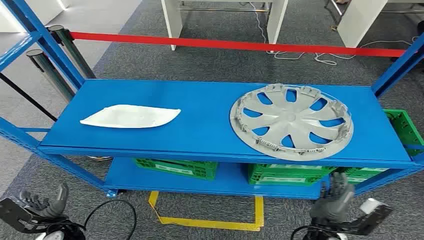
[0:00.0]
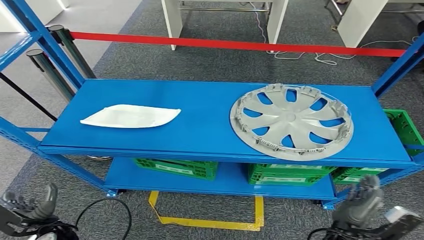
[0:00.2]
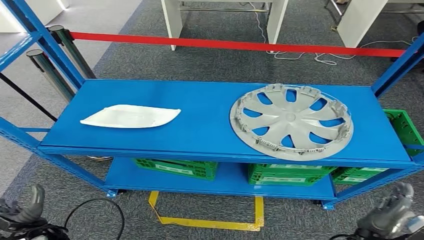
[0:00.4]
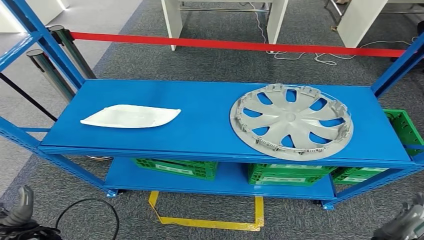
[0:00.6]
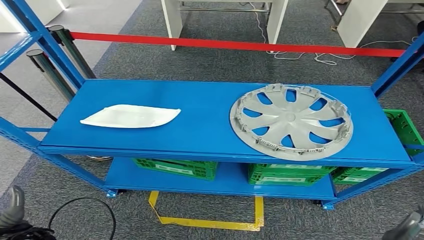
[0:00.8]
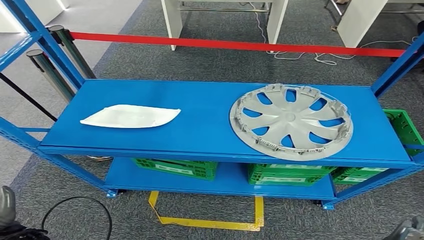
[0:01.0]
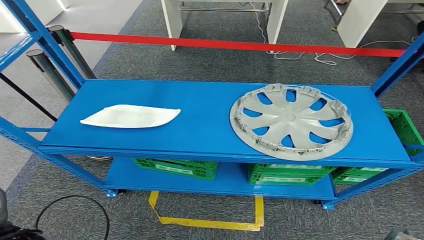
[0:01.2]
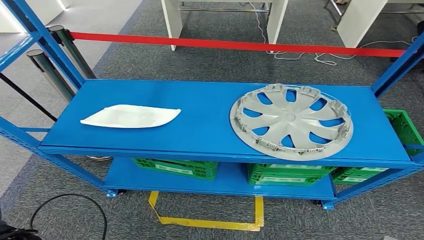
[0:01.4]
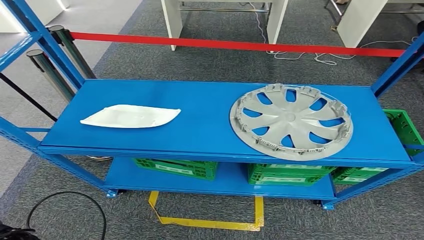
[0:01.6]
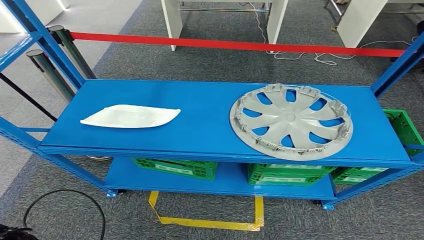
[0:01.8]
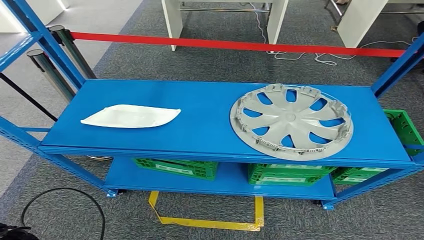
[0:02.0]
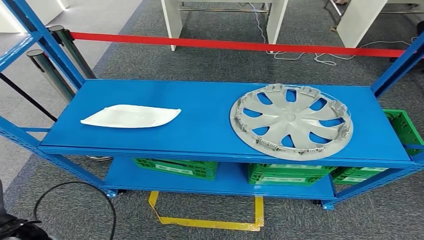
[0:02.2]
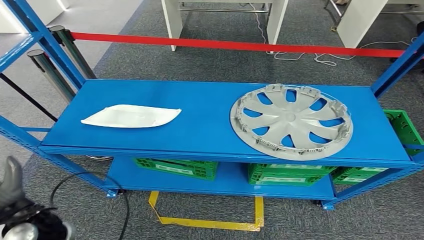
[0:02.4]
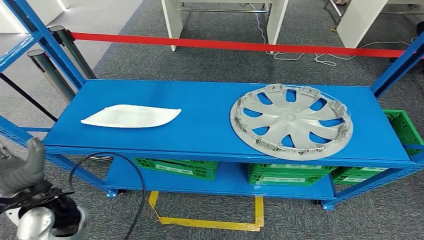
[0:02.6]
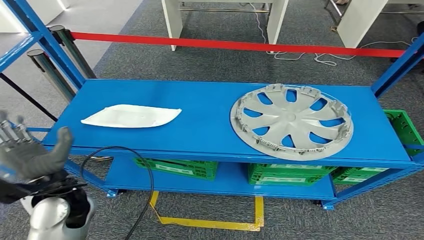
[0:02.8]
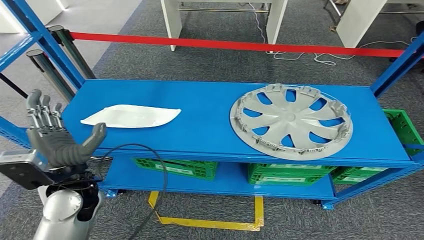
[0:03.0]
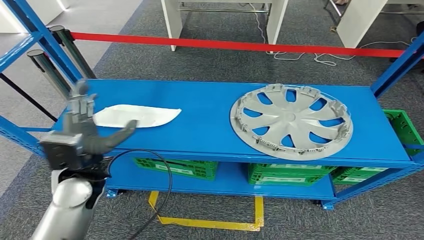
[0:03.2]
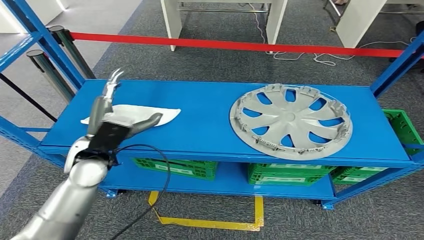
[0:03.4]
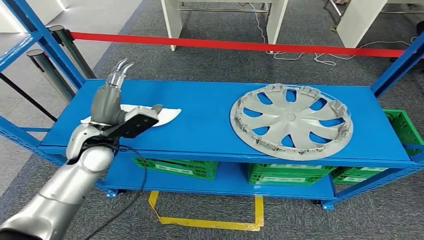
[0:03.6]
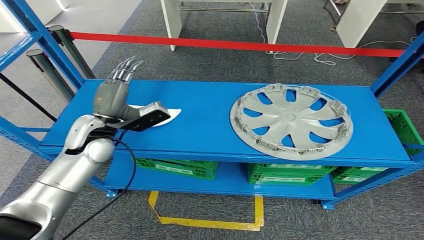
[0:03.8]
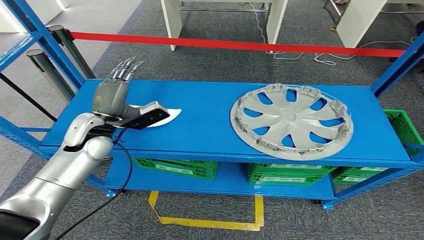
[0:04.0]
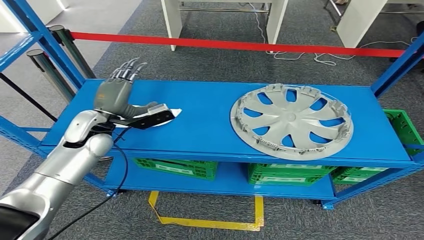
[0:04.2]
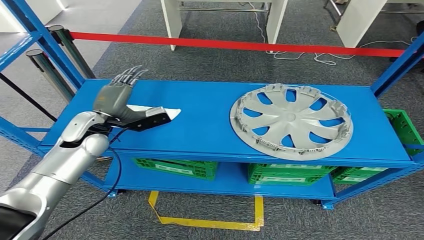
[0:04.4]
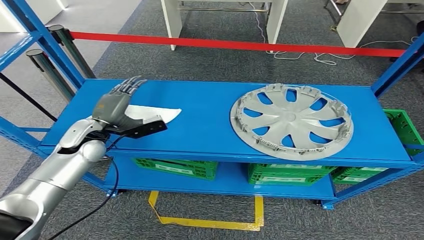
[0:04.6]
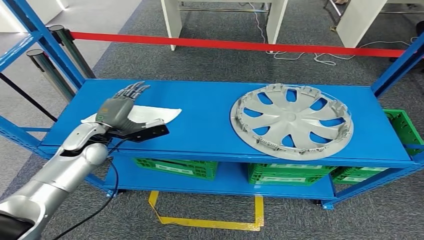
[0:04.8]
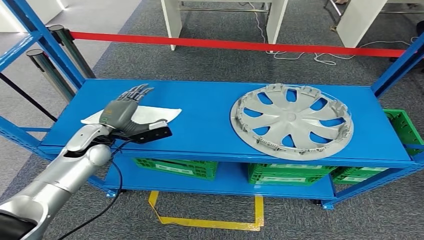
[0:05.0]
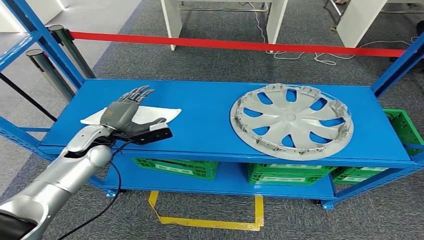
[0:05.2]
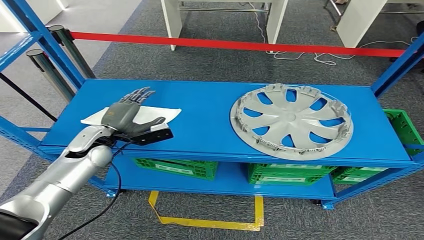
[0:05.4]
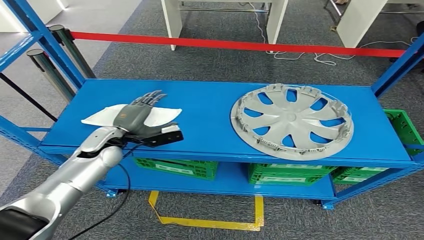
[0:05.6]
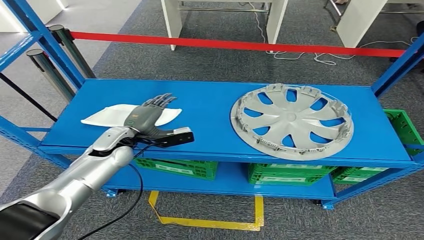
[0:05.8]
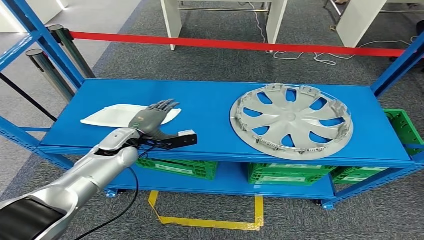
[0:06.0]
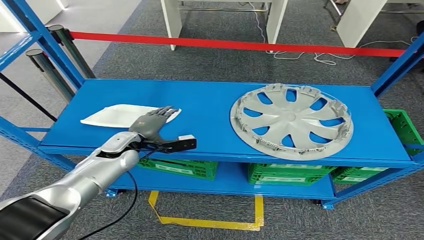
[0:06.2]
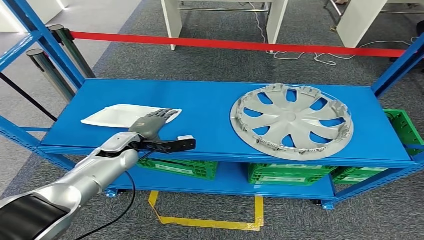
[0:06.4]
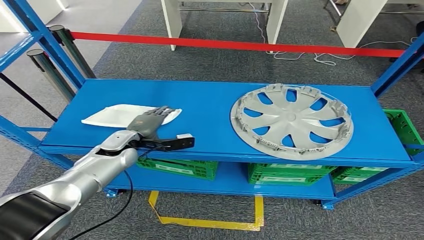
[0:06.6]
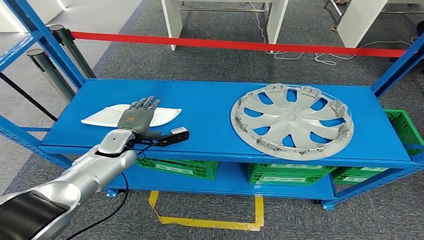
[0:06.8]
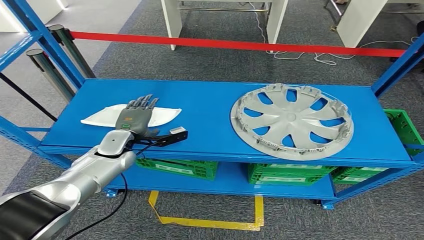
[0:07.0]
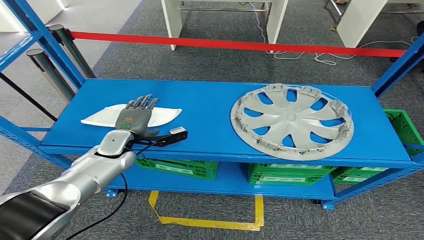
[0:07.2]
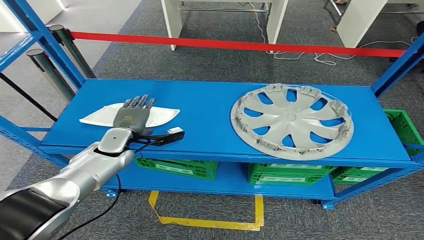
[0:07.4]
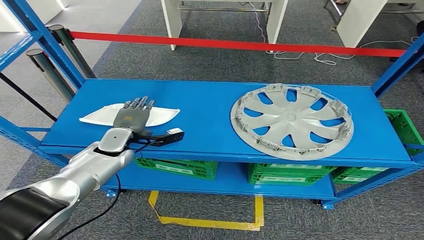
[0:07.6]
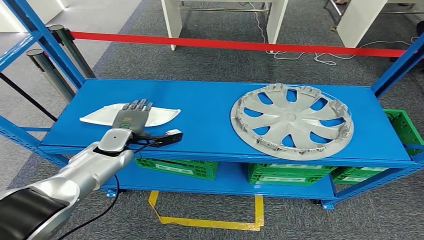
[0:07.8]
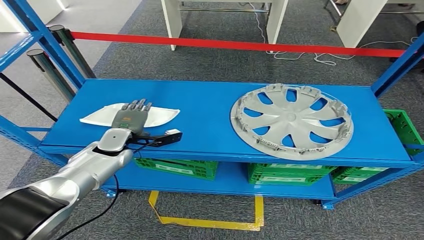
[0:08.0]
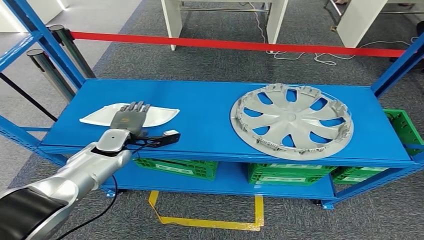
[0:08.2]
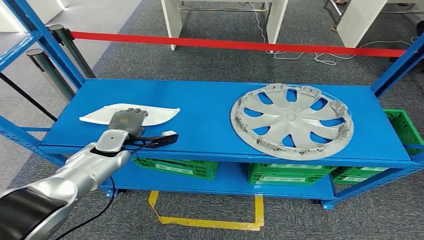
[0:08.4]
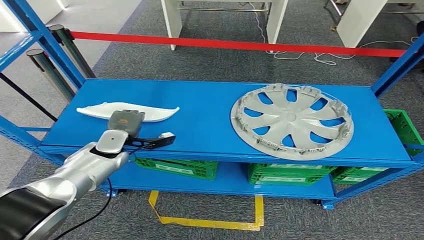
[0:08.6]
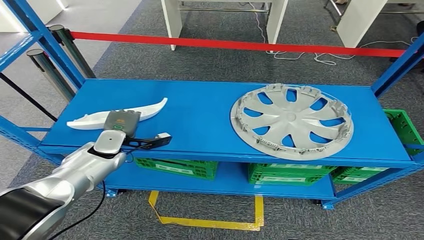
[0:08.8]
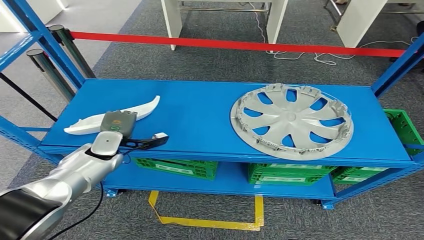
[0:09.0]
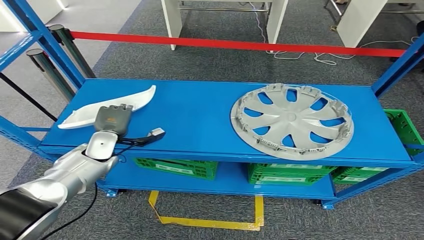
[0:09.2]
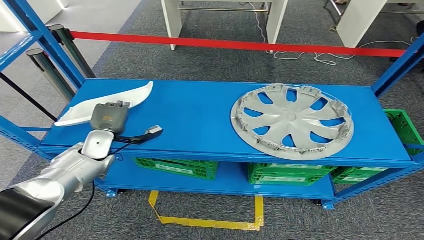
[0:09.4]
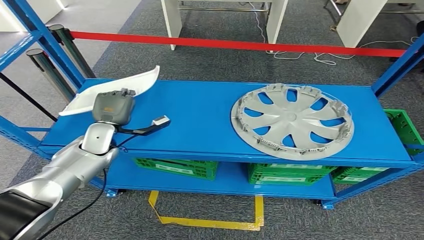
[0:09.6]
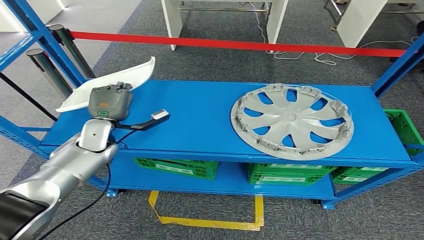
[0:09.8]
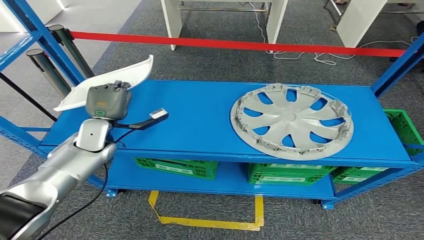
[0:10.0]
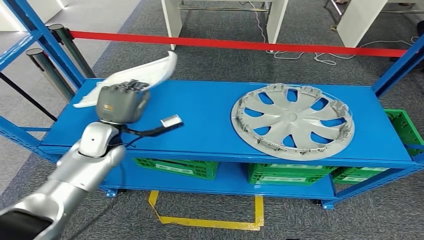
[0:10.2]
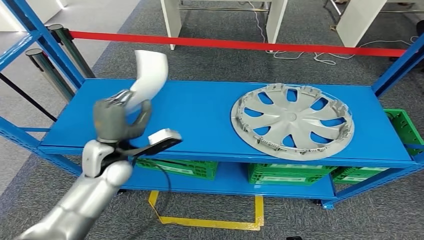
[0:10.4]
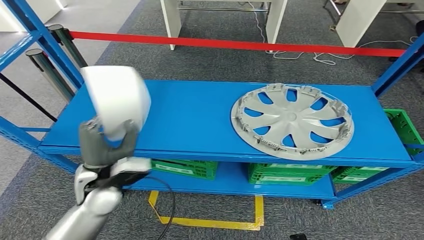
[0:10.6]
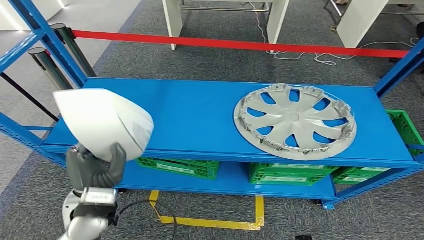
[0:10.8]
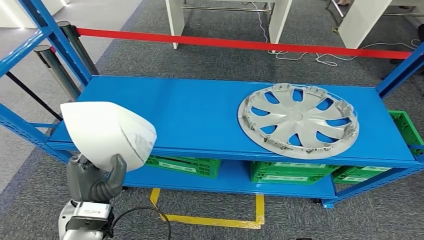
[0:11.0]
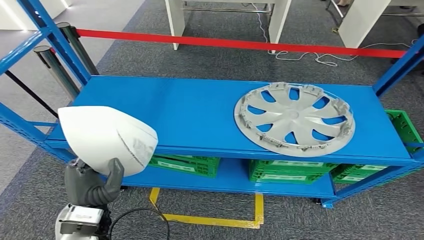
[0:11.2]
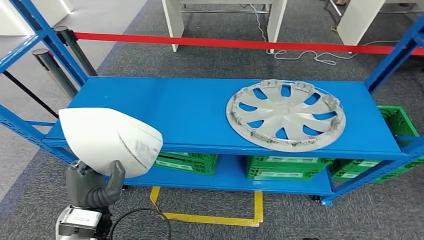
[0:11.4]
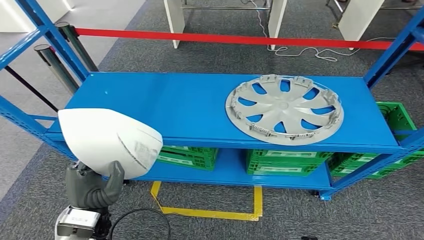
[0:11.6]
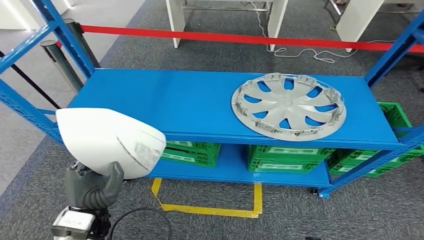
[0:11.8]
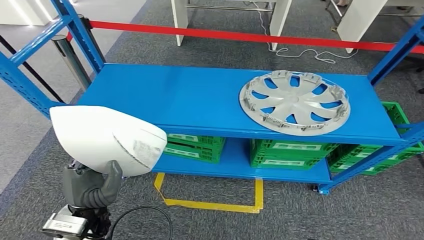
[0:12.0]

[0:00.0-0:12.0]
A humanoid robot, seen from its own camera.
Step, 0:00.0 to 0:11.4: Pick up the small parts from the shelf.
0:01.6 to 0:03.0: The left hand is displaced forward, to the right and upward by about 20 cm.
0:03.0 to 0:04.4: The left hand moves forward, about 15 cm.
0:04.4 to 0:06.0: The left hand heads downward and to the right, covering about 10 cm.
0:07.6 to 0:09.0: The hands make only small movements.
0:09.0 to 0:10.4: The left hand travels upward, backward and to the right by roughly 10 cm.

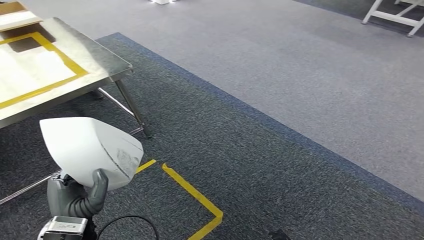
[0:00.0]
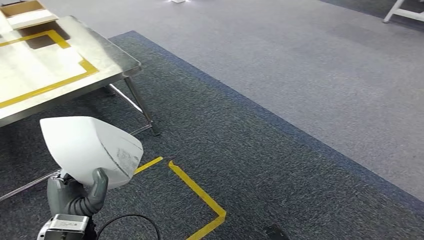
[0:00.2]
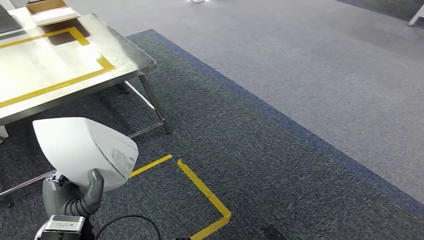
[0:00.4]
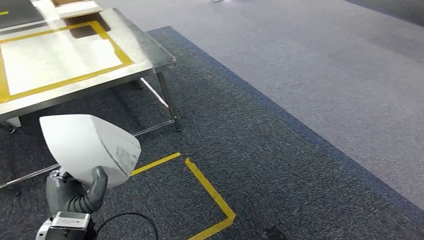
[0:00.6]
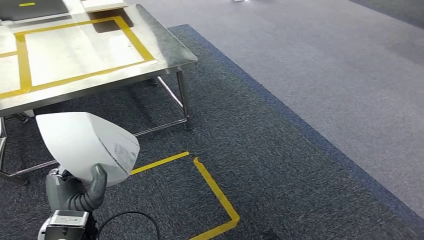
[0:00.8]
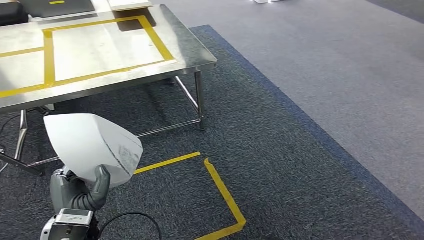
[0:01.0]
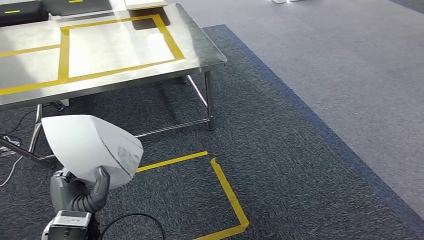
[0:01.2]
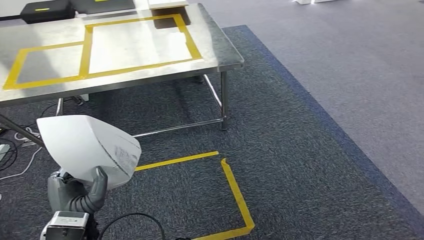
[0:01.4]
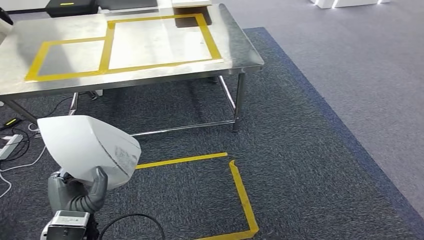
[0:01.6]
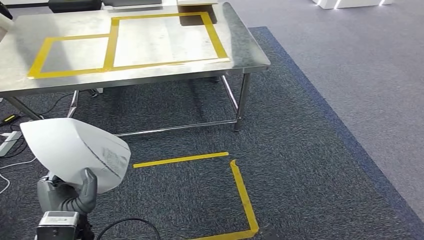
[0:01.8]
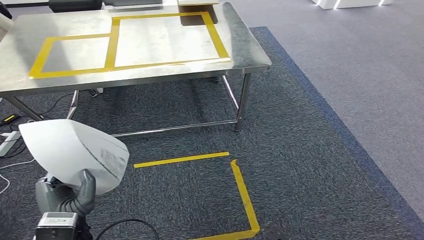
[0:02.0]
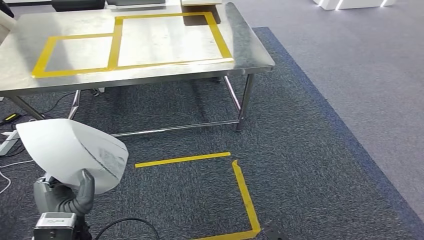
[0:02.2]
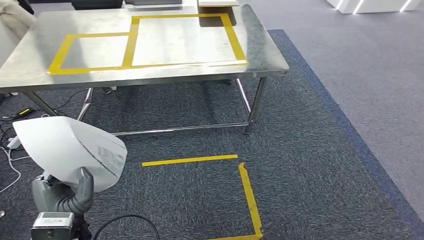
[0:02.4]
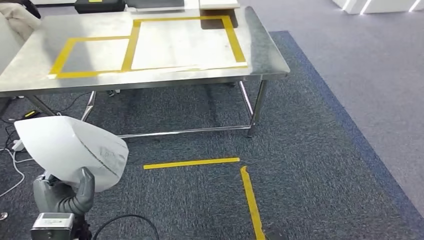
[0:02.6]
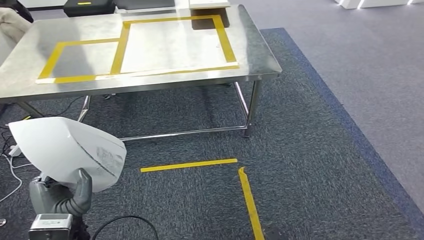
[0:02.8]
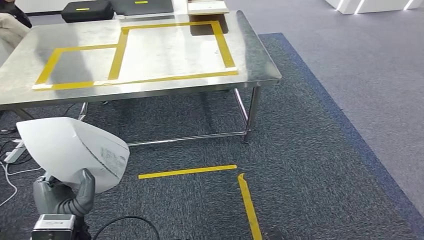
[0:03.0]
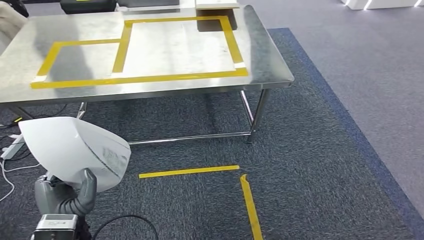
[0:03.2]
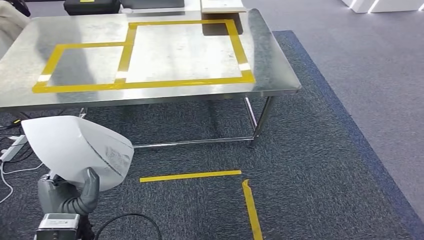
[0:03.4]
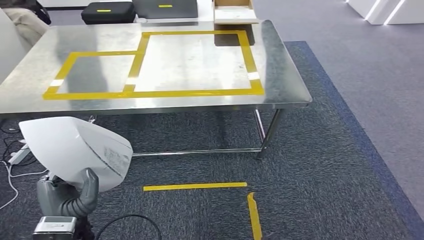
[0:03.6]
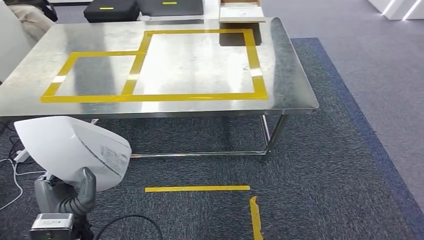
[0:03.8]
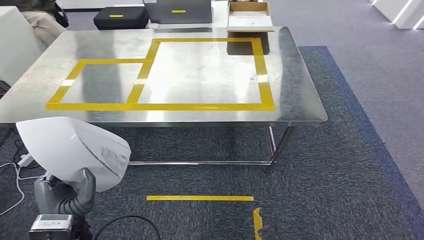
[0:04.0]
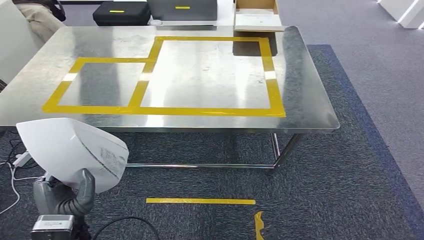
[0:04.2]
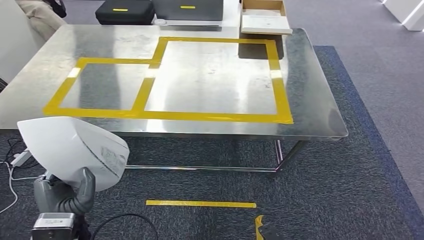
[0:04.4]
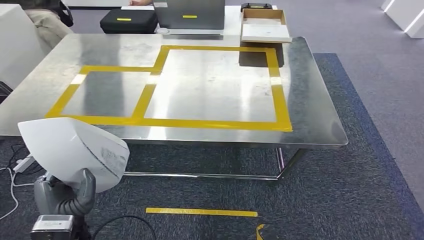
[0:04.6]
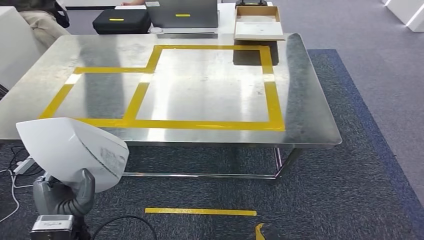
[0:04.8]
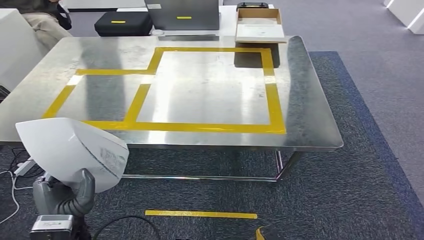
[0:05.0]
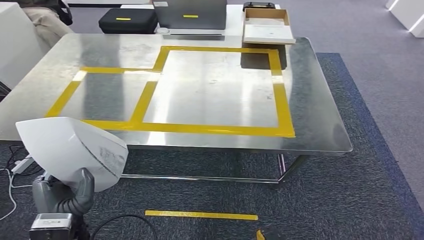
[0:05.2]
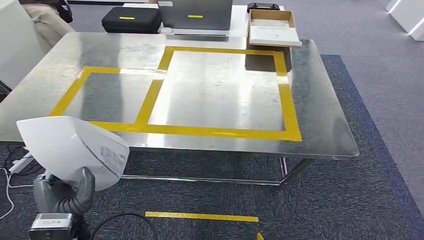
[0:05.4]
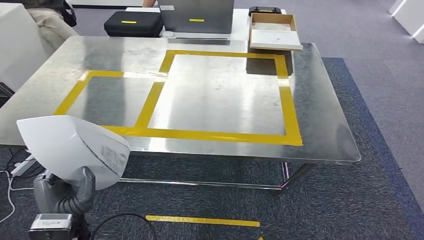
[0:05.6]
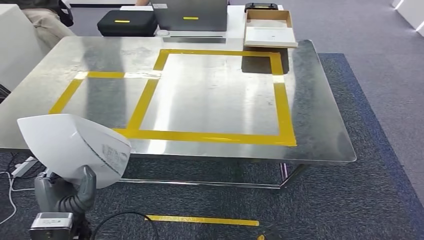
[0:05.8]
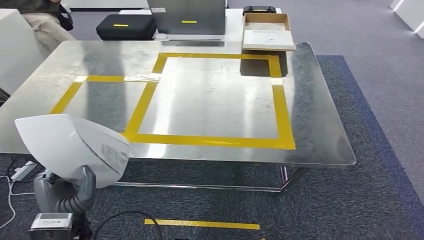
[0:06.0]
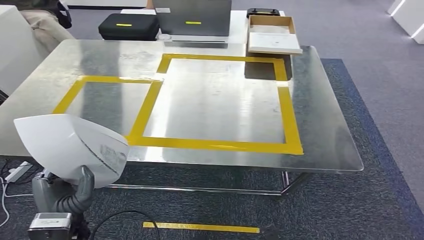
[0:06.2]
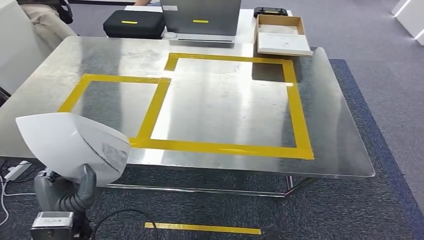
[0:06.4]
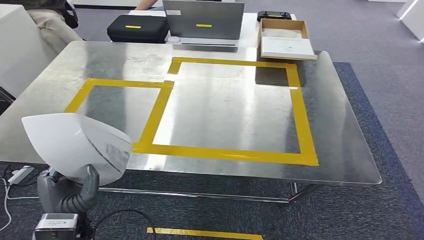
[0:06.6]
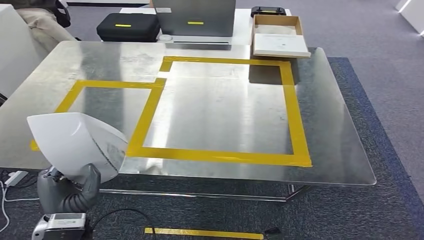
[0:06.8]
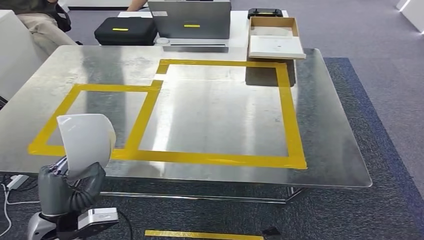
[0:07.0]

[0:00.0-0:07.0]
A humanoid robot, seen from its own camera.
Step, 0:00.0 to 0:05.6: Move the small parts to the workbench.
